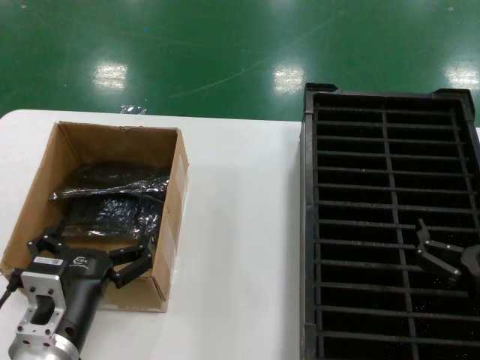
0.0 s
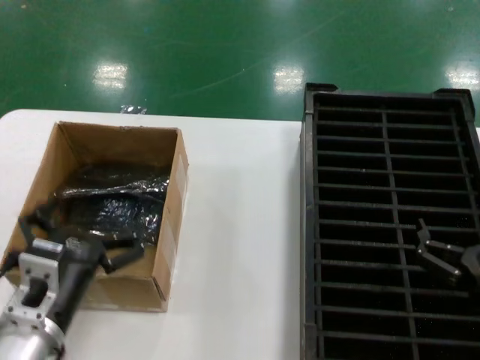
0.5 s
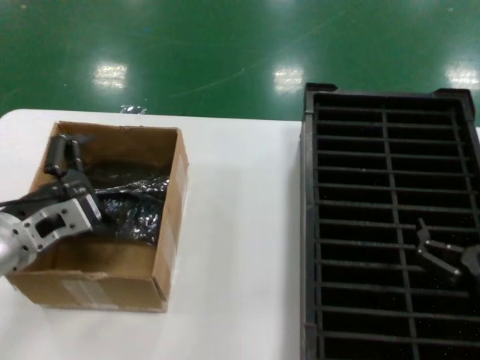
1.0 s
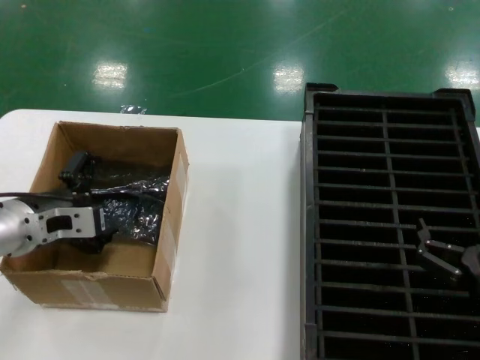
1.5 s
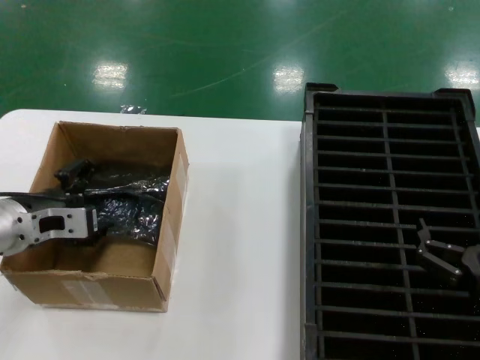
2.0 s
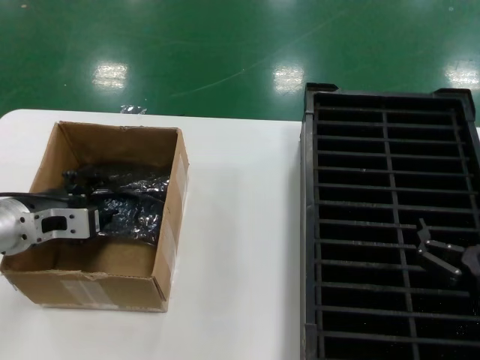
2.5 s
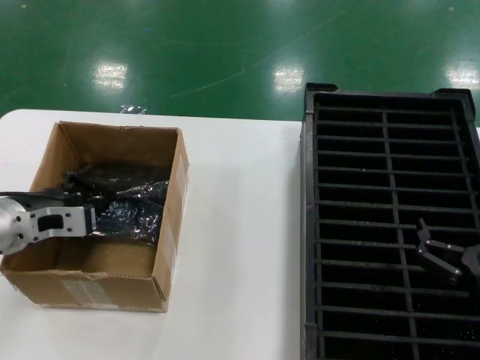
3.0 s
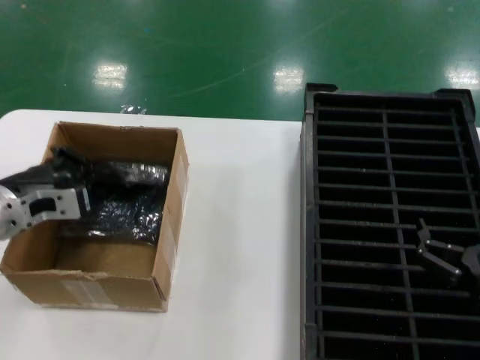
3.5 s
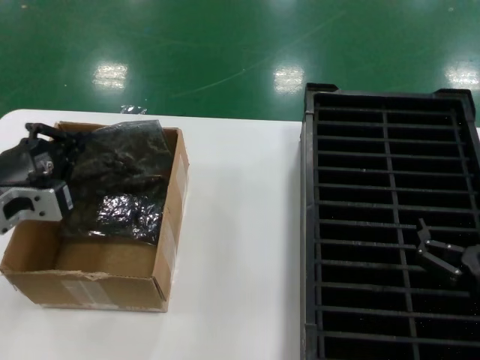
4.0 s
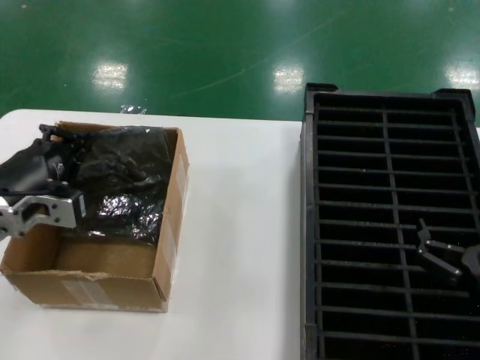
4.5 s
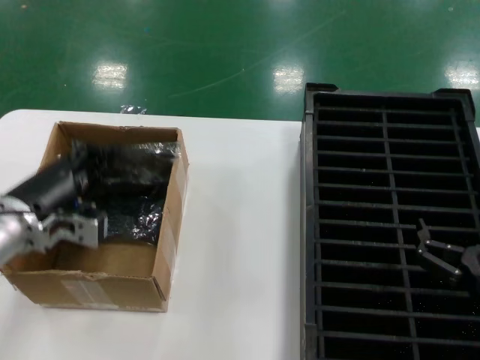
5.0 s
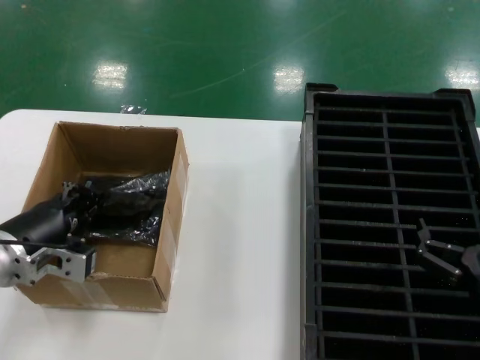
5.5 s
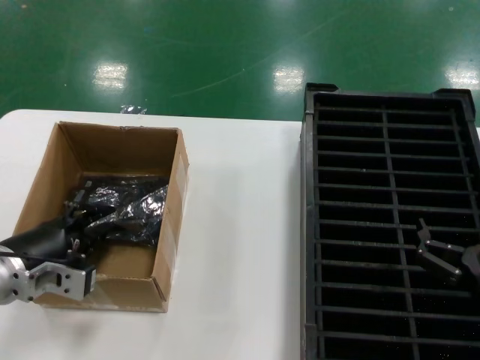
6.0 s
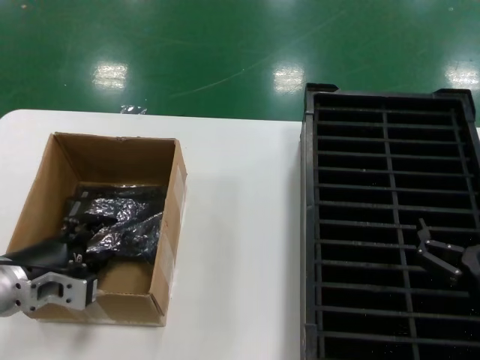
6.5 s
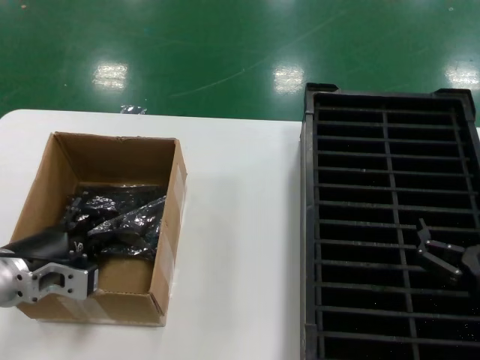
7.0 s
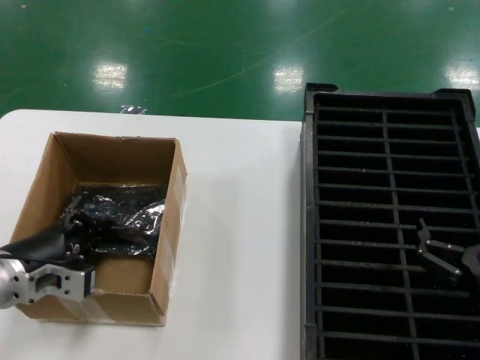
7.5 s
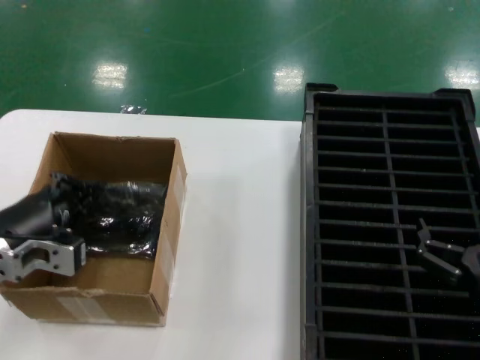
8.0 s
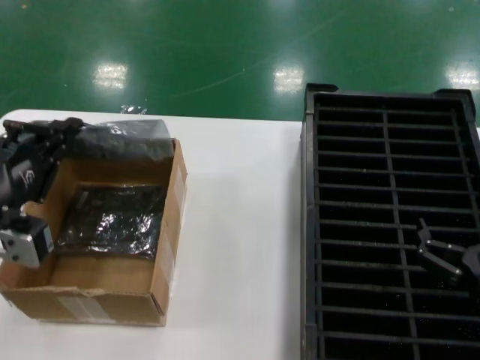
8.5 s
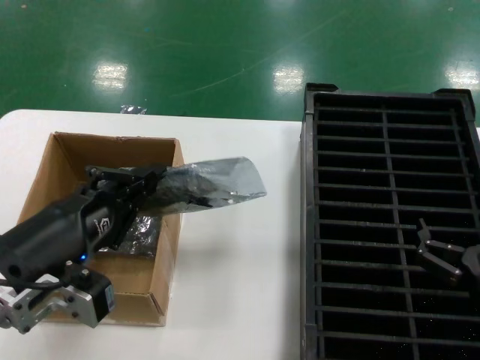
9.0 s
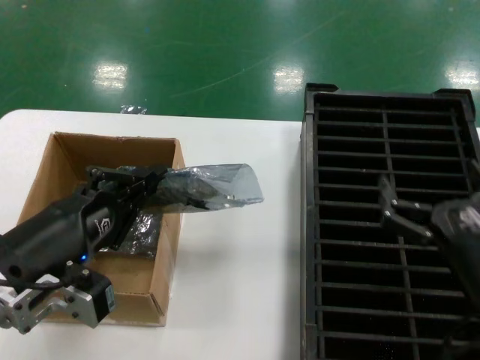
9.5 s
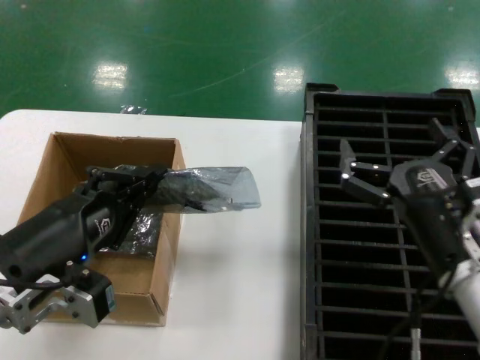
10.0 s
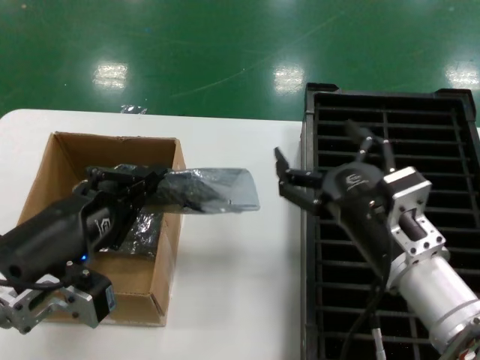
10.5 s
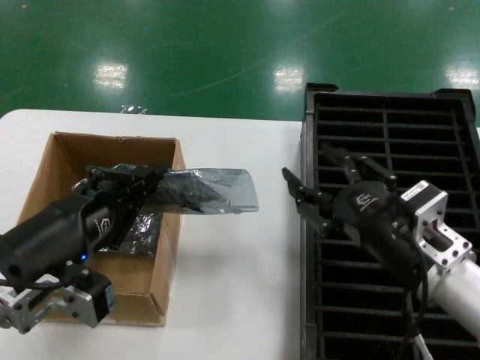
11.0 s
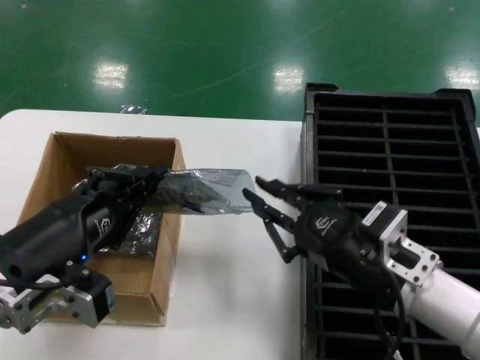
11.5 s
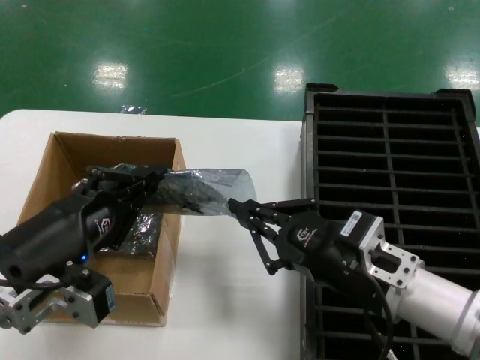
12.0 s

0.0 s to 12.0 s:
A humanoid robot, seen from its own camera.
Task of the whole recording: take out graphics card from box remove packaging put into black container.
Step, 0.0 to 7.5 s: Grasp the bag.
Step, 8.0 to 9.0 s: Lift the bag.
0.0 to 2.0 s: The left hand is displaced forward, to the left and upward by about 20 cm.
2.0 to 4.0 s: The left hand goes about 5 cm backward.
4.0 to 6.0 s: The left hand travels downward by roughly 5 cm.
6.0 to 8.0 s: The hands stay close to where they were, moving slightly.
8.0 to 10.0 s: The right hand goes some 10 cm upward and to the left; the left hand goes about 10 cm backward and to the right.

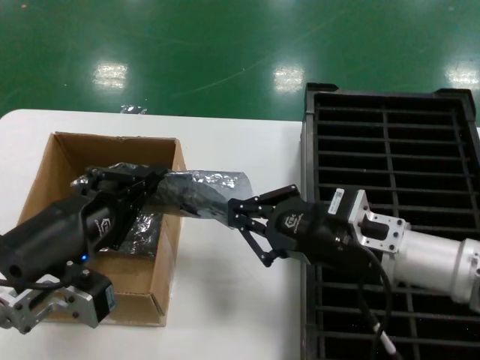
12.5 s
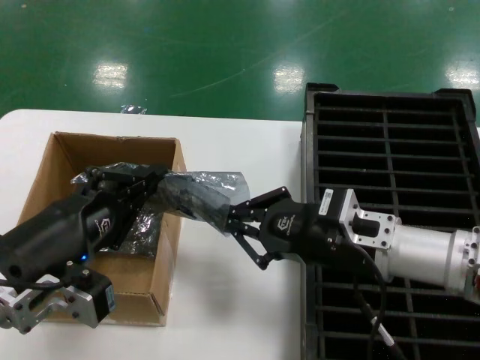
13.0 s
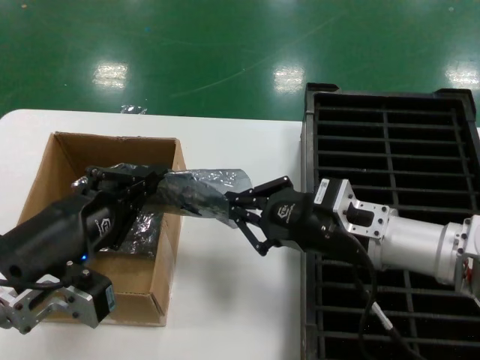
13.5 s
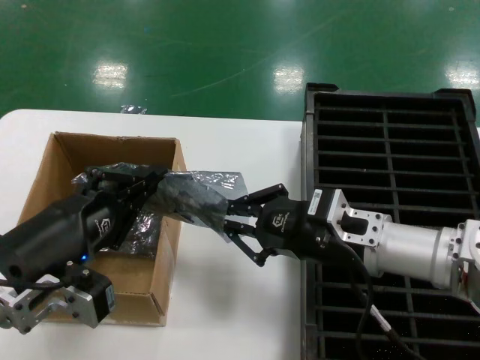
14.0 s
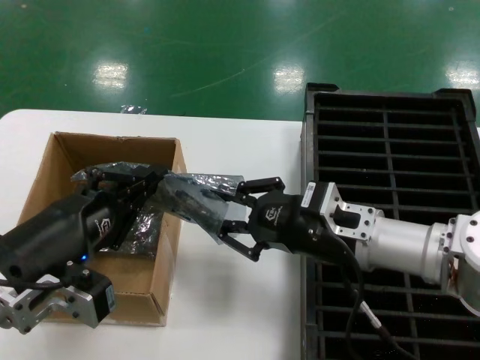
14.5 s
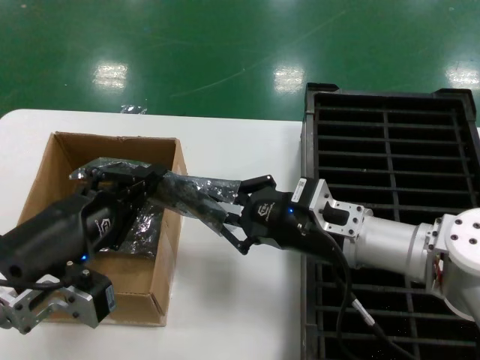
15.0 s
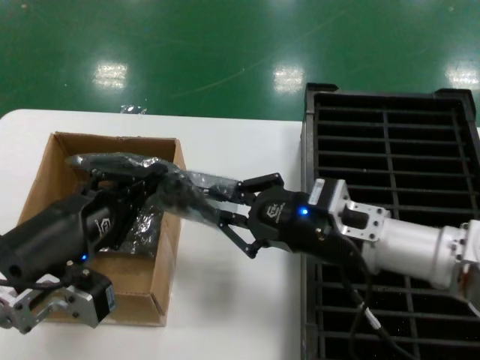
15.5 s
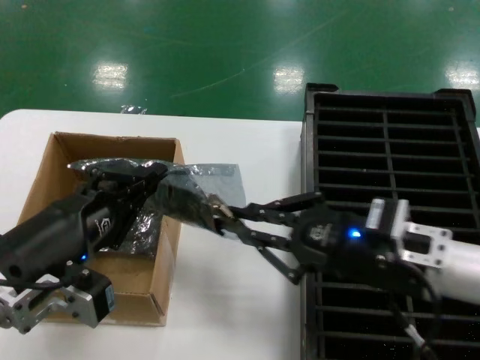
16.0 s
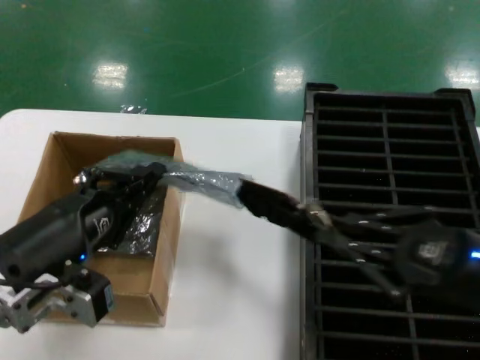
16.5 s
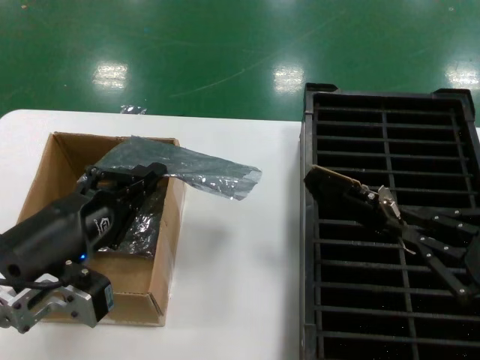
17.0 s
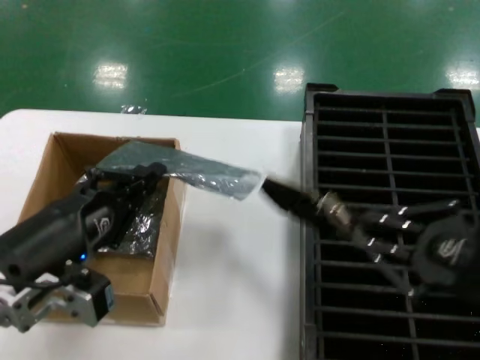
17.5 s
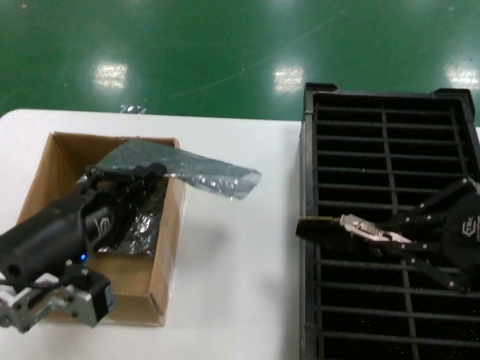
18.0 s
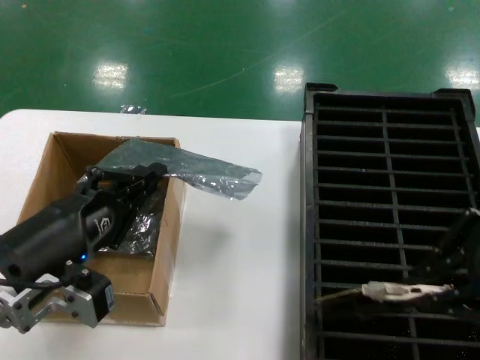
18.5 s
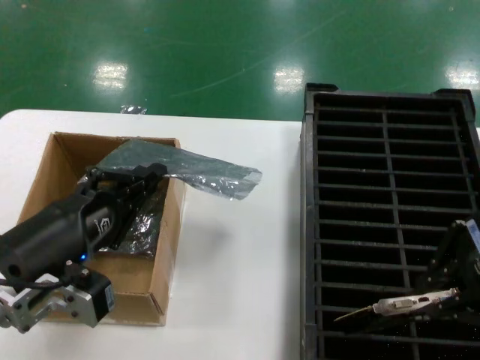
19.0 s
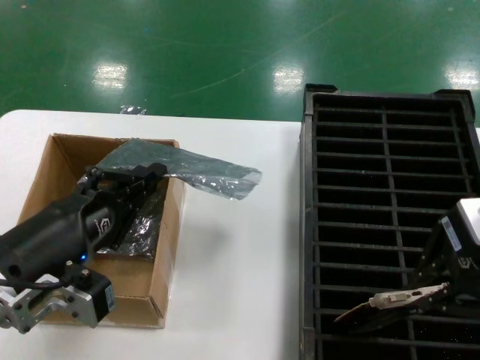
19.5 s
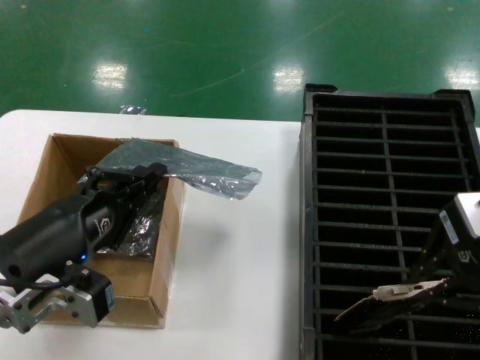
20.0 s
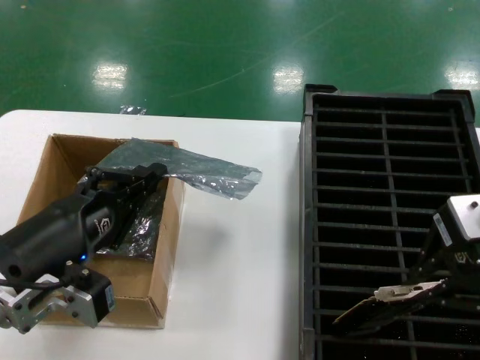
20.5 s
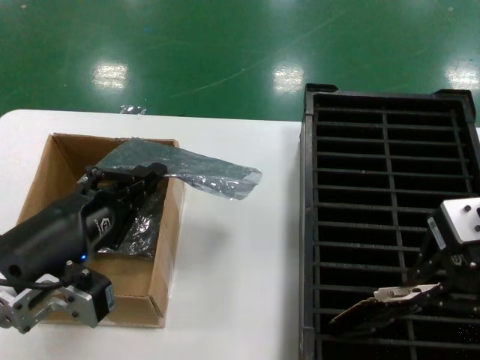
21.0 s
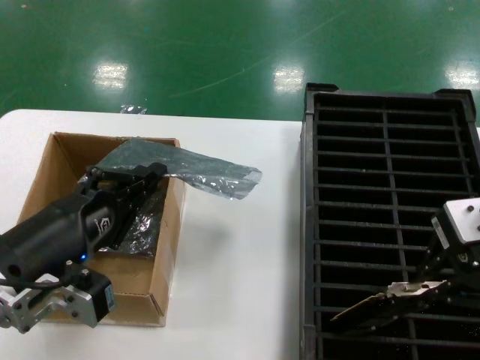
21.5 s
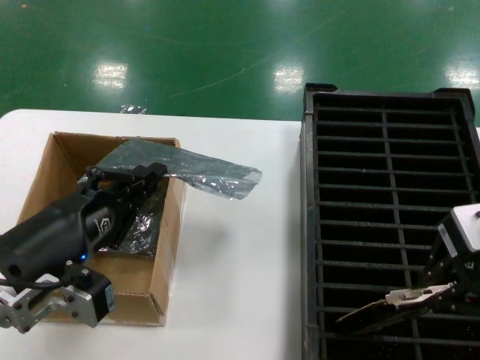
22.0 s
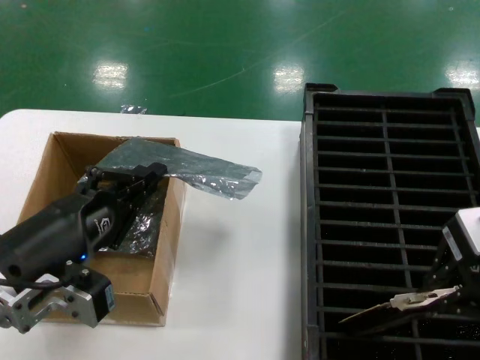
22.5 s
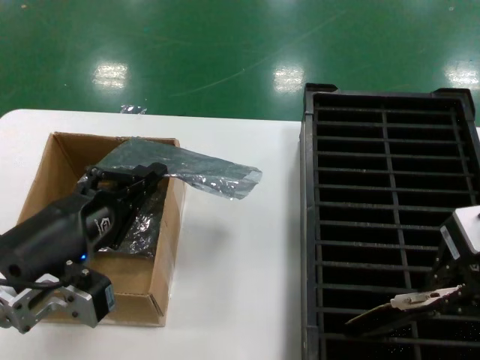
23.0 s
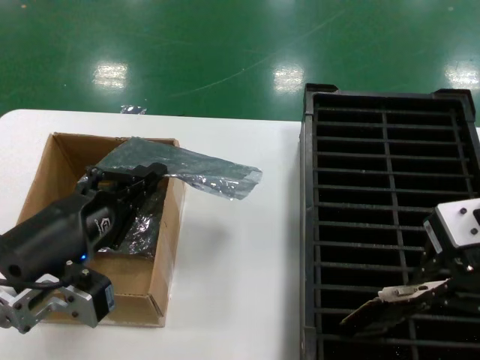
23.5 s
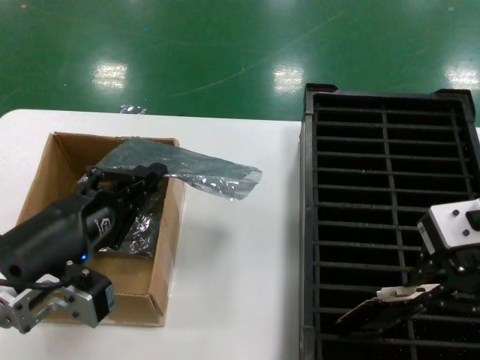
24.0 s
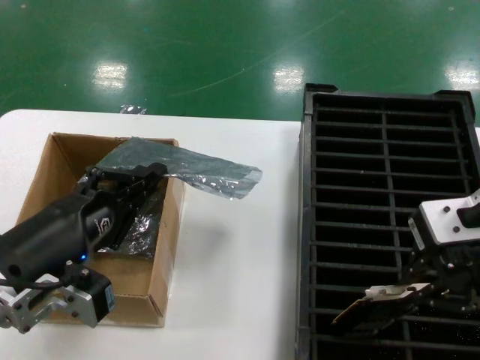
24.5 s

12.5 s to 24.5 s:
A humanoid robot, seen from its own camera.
Task of the whole recording: take out graphics card from box remove packaging put into black container.
Step, 12.5 to 16.5 s: Take out the hard disk of the bag.
12.5 to 14.5 s: The hands make only small movements.
14.5 to 16.5 s: The right hand travels to the right and backward by some 20 cm.
16.5 to 18.5 s: The right hand goes roughly 20 cm upward.
18.5 to 20.5 s: The right hand travels forward by approximately 5 cm.
20.5 to 24.5 s: There are only small adjustments of the hands.

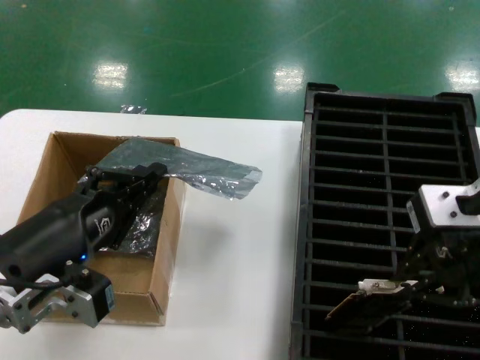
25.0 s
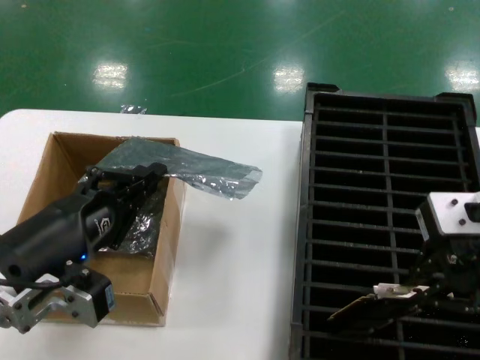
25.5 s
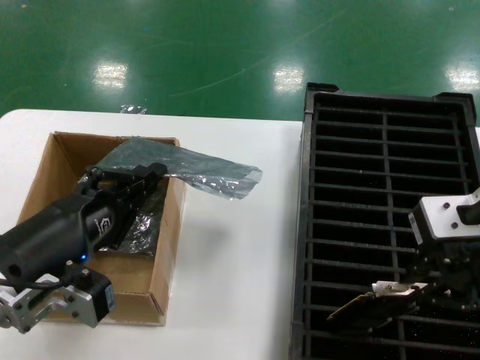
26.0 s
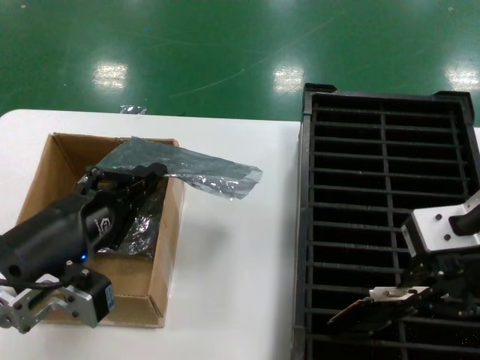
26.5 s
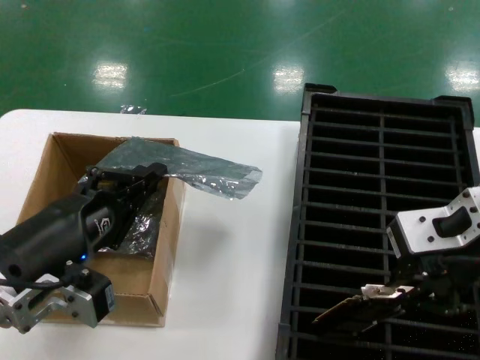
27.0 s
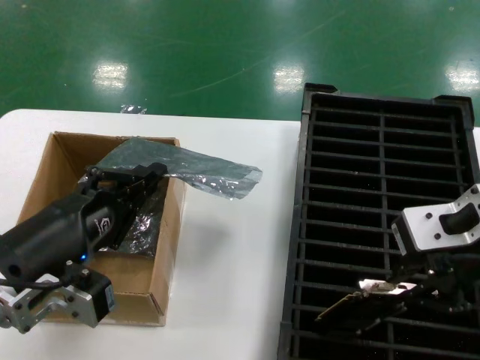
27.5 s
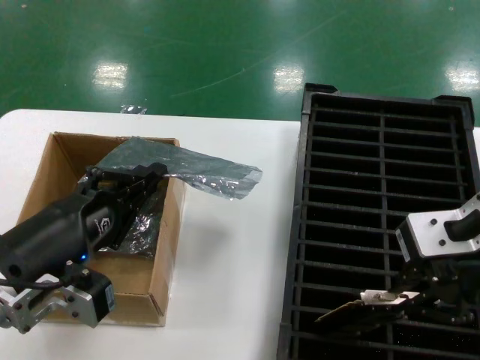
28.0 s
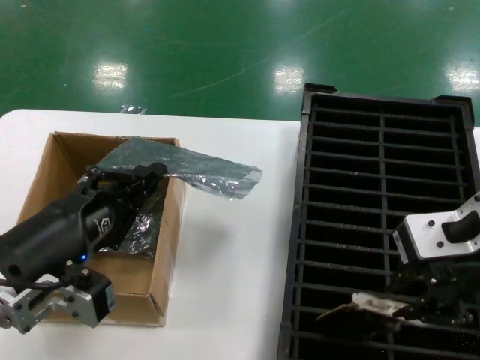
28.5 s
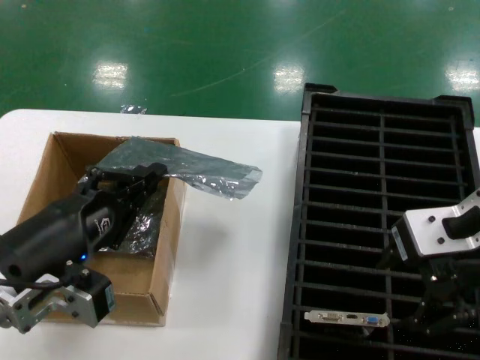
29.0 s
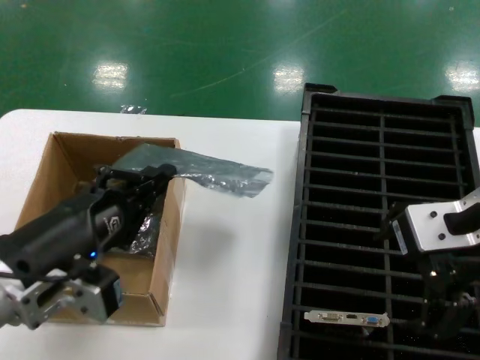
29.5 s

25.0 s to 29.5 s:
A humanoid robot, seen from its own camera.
Task of the whole recording: take out graphics card from box remove packaging put into black container.
Step, 25.0 to 28.5 s: Place the hard disk in the hard disk enclosure.
25.0 to 29.5 s: The hands stay close to where they were, moving slightly.
